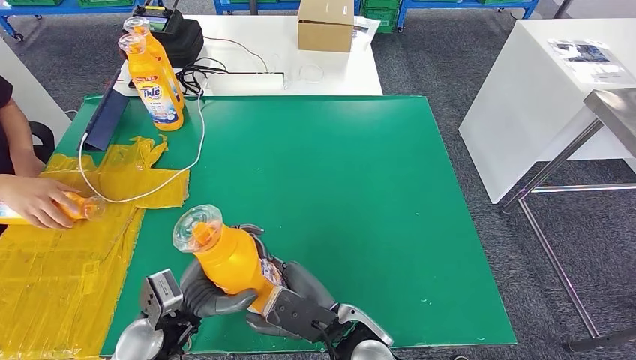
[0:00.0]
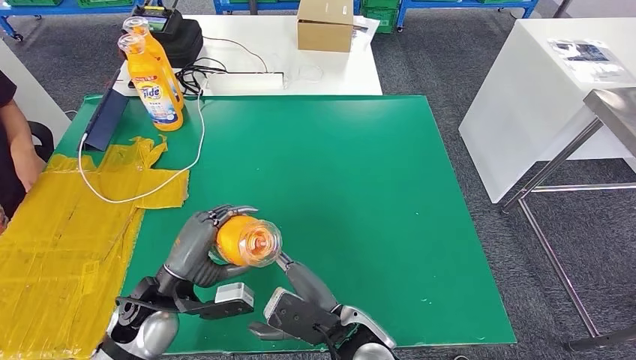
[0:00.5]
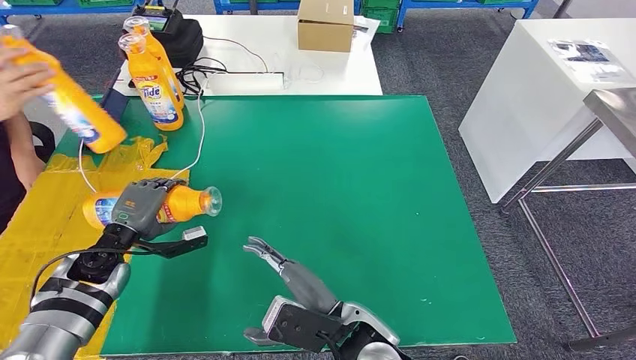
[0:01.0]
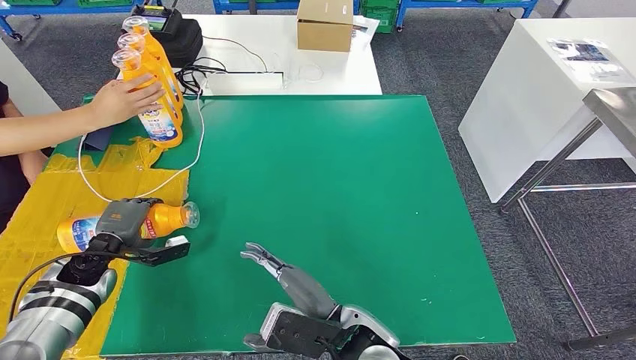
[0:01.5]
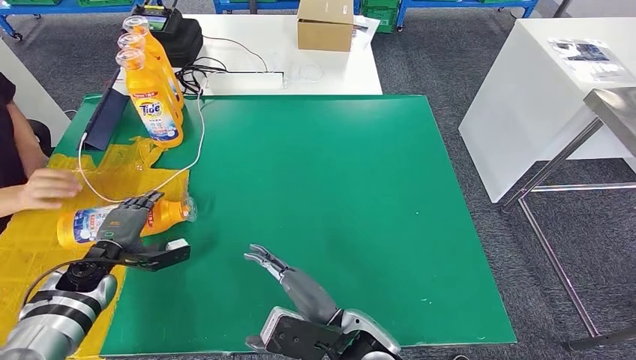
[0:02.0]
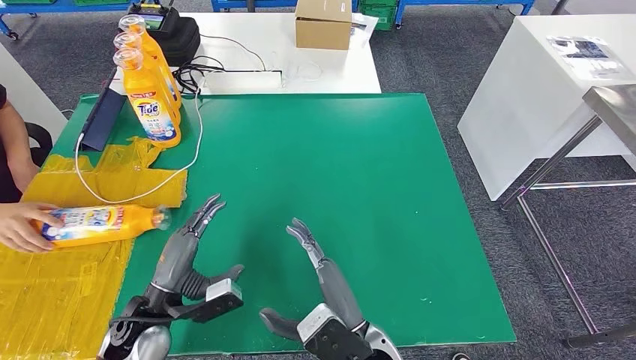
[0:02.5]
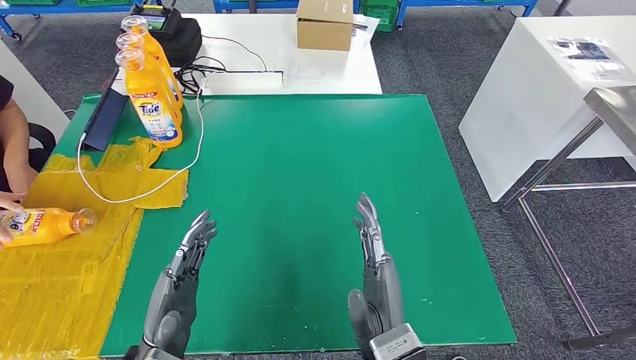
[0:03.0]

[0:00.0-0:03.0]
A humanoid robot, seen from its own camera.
Step, 0:00.0 to 0:03.0: Flip the fast-moving consumer goods bottle to the front side.
0:00.0 to 0:01.5: The left hand heads to the left and forward, covering some 20 cm.
0:01.5 to 0:03.0: The left hand heads backward and to the right, covering approximately 25 cm. The right hand heads backward, covering some 5 cm.
